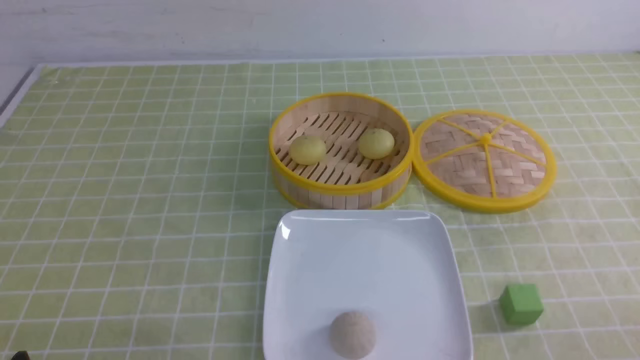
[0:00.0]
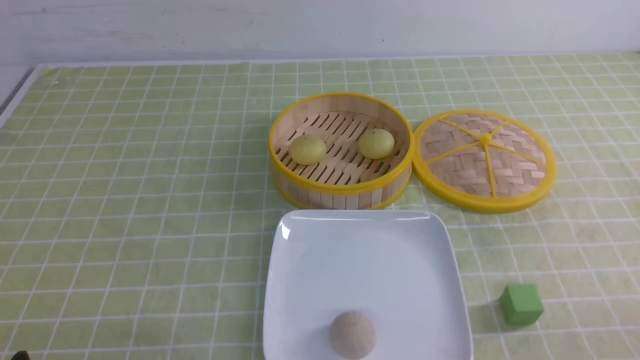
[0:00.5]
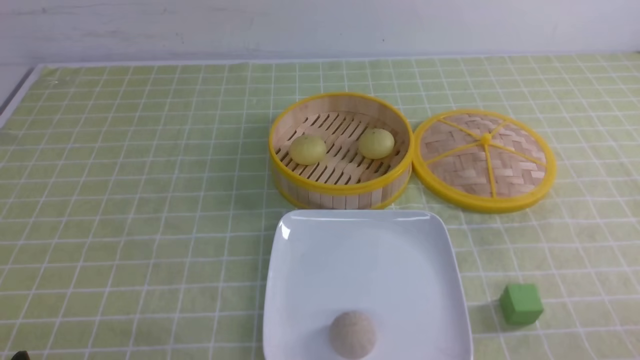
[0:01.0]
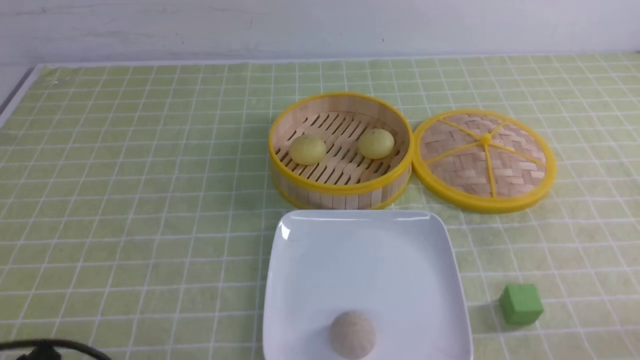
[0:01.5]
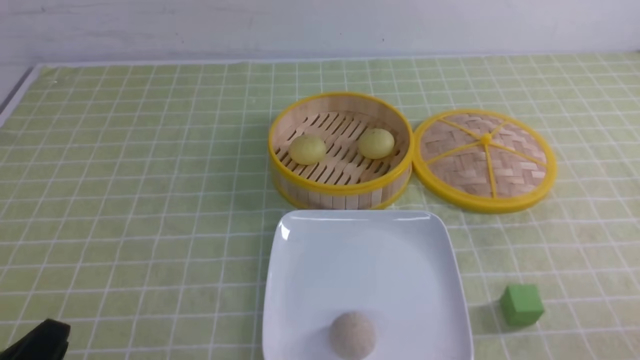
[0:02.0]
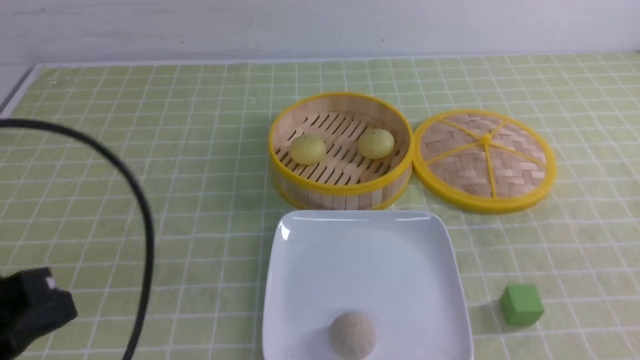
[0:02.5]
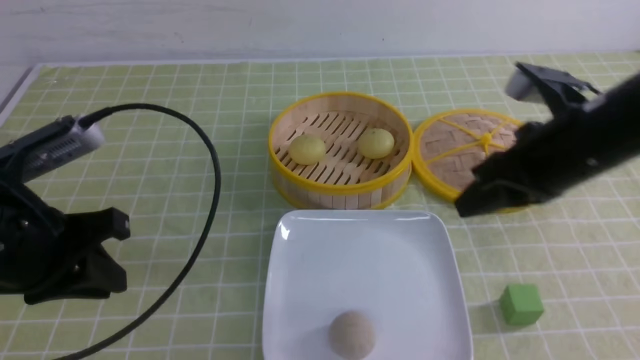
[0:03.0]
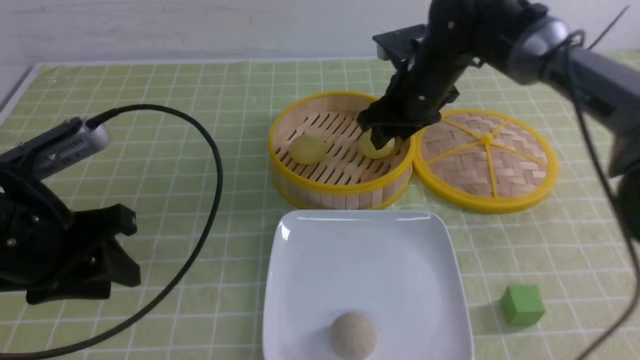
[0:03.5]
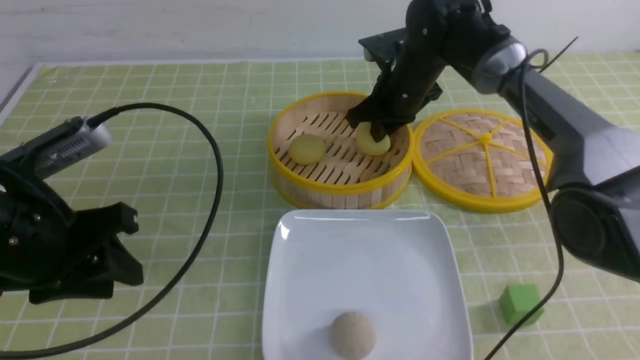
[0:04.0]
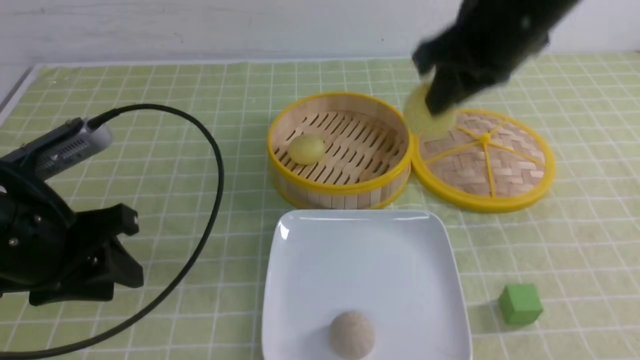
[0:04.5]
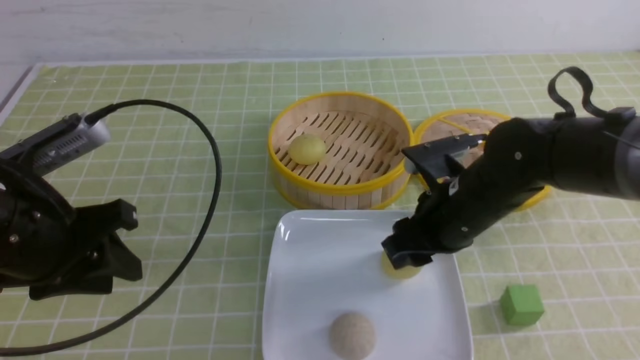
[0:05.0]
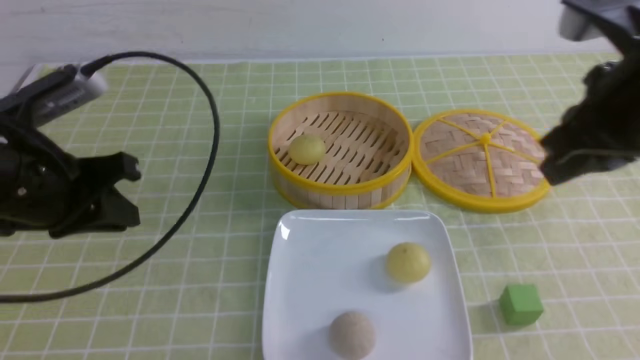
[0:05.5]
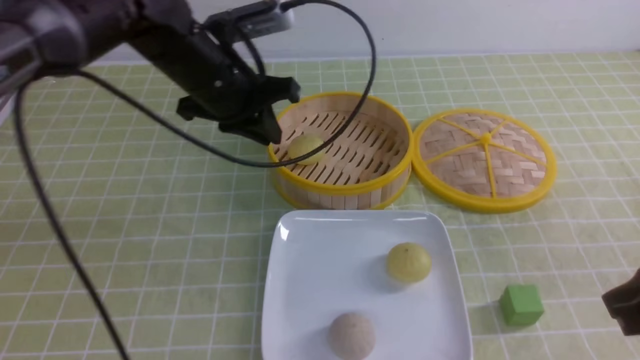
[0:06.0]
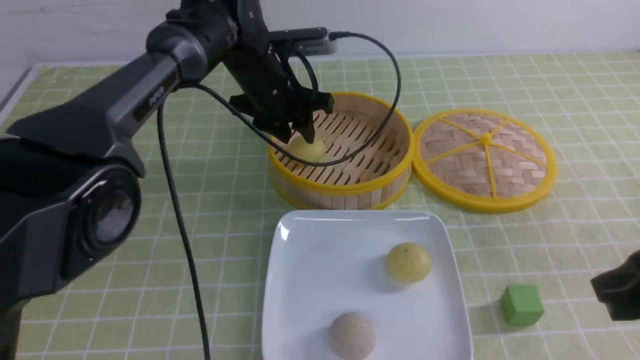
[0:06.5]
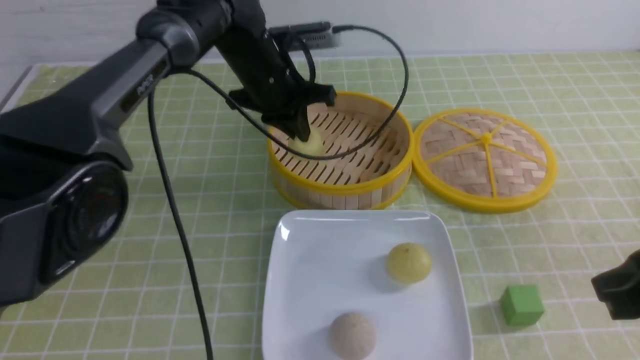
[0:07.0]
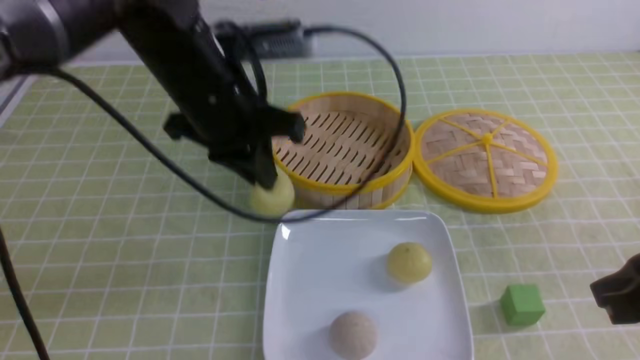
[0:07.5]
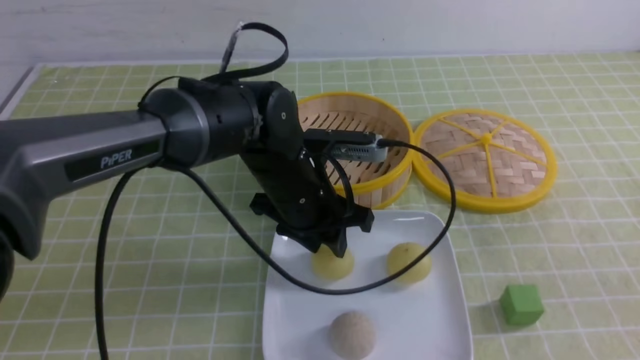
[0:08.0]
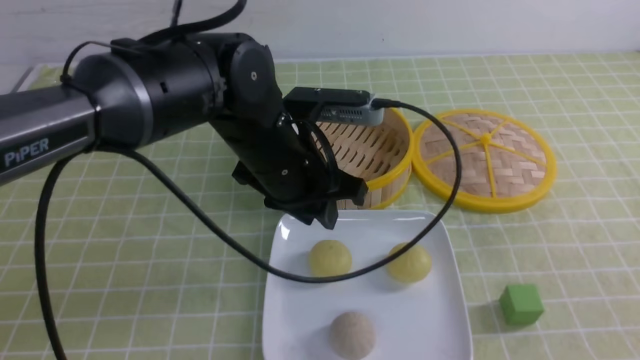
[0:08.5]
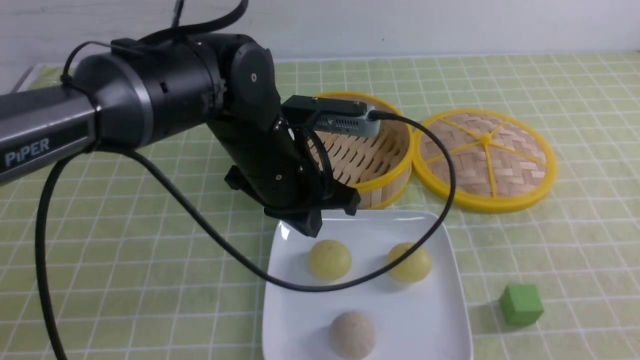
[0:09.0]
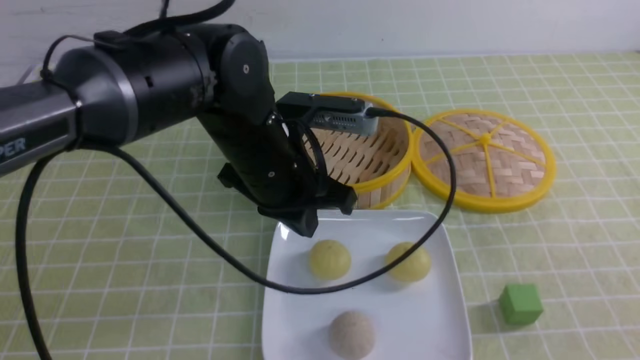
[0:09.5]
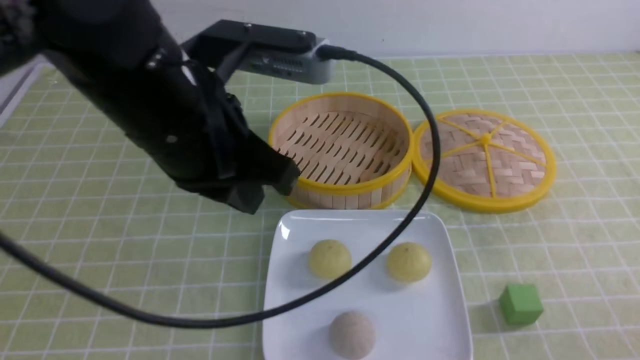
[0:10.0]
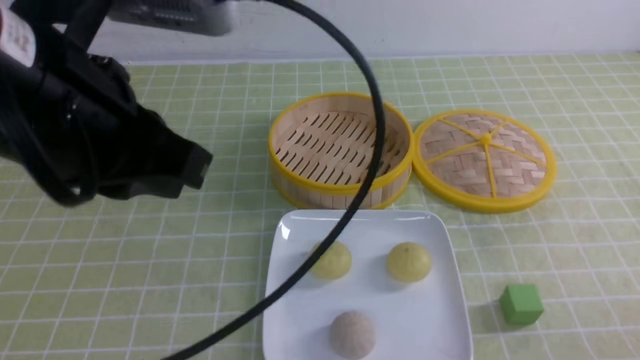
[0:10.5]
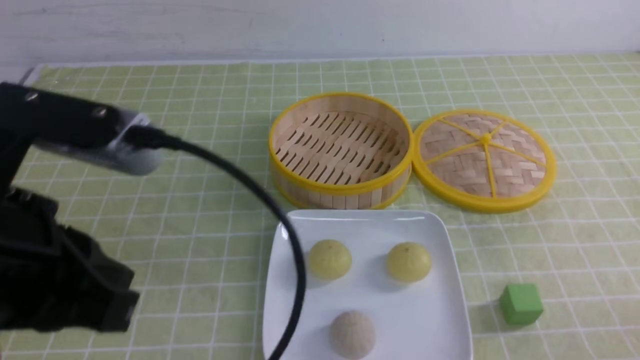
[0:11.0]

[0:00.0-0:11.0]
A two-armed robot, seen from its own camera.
Step, 0:00.0 to 0:03.5: use the right arm to grab the steamed stuffed bun that is closest to it.
Step, 0:04.0 to 0:05.0: use the right arm to put the steamed stuffed bun into the plate.
Step, 0:05.5 to 0:06.5: use the left arm to grab the steamed stuffed bun that is closest to it.
Step, 0:07.0 to 0:08.0: use the left arm to put the steamed stuffed bun into the plate.
0:02.0 to 0:03.5: The right gripper goes roughly 50 cm forward and to the left, and opens, while the left gripper travels forward by some 15 cm, and opens.
0:03.5 to 0:05.5: The right gripper goes about 30 cm backward, upward and to the right, and closes. The left gripper changes place by about 5 cm, and closes.
0:05.5 to 0:07.5: The right gripper is displaced backward and downward by about 10 cm; the left gripper heads to the right and forward, covering approximately 15 cm, and opens, then closes again.
0:07.5 to 0:09.0: The right gripper travels backward by roughly 10 cm. The left gripper ends up about 5 cm from where it was, and opens and closes again.
0:09.0 to 0:11.0: The right gripper shifts some 10 cm downward. The left gripper travels backward, to the left and upward by some 25 cm.

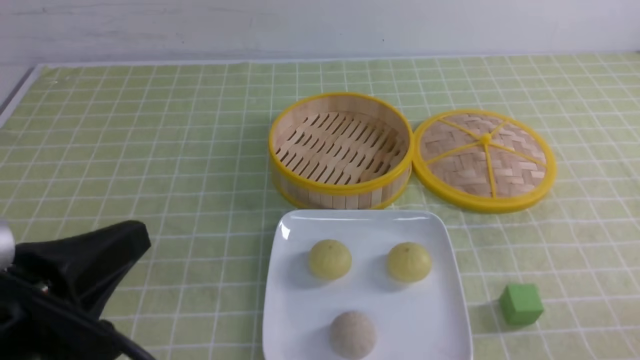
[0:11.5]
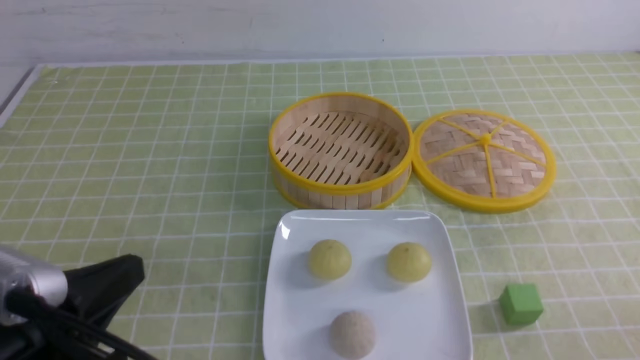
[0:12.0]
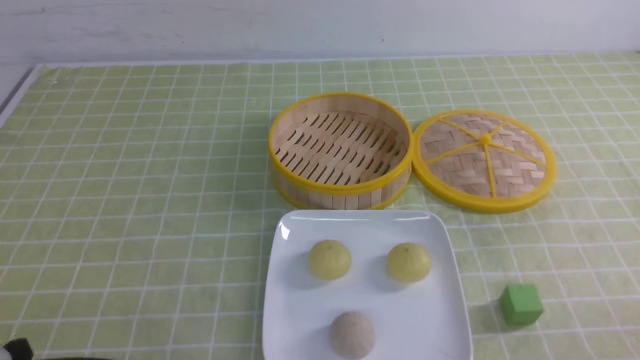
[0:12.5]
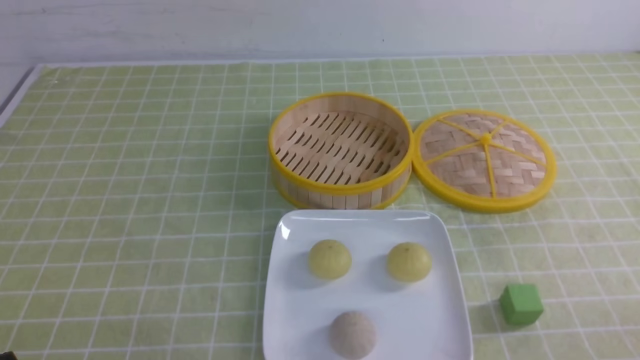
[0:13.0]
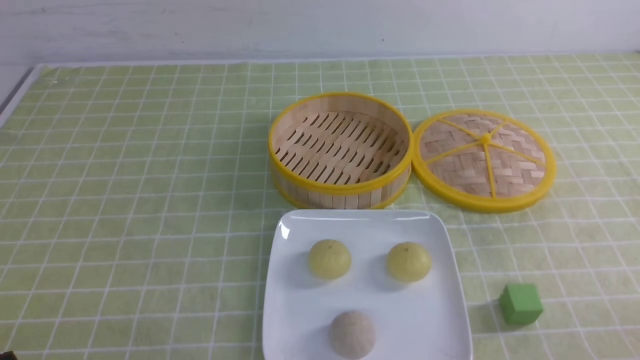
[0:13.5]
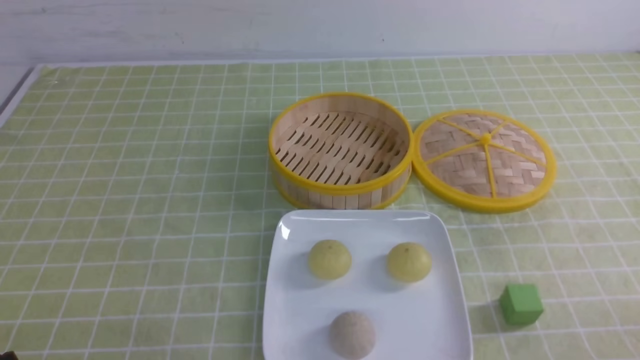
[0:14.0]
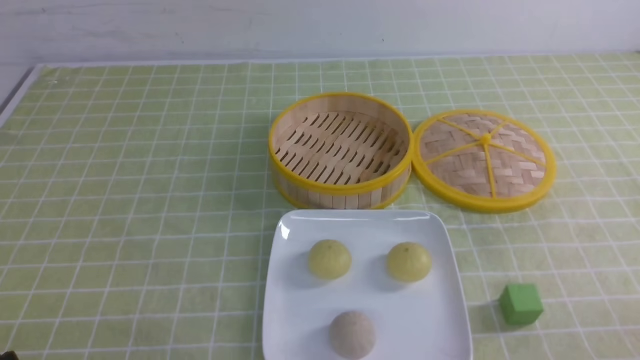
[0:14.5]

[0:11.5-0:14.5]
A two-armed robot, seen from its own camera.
0:11.5 to 0:13.0: The left gripper travels downward and to the left by approximately 15 cm.
0:13.0 to 0:14.5: Neither gripper changes place.
